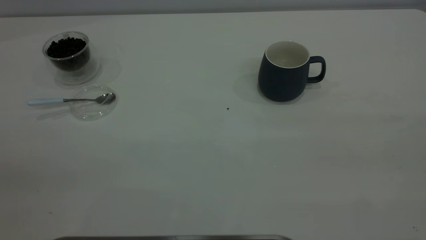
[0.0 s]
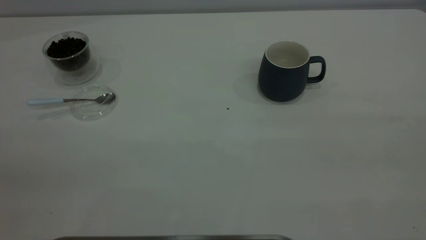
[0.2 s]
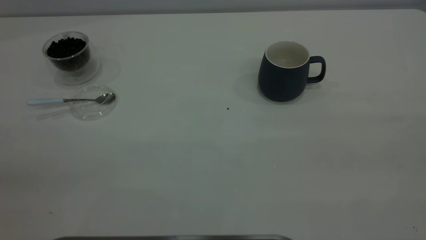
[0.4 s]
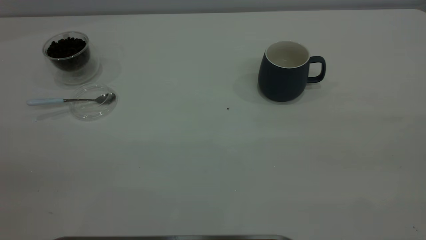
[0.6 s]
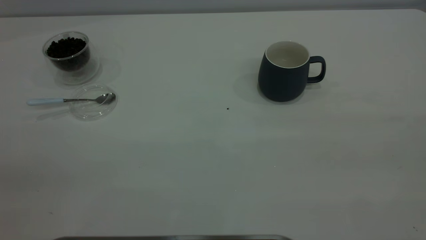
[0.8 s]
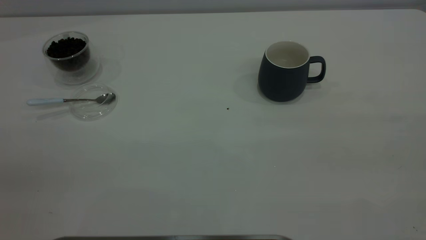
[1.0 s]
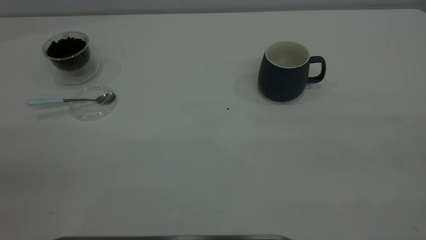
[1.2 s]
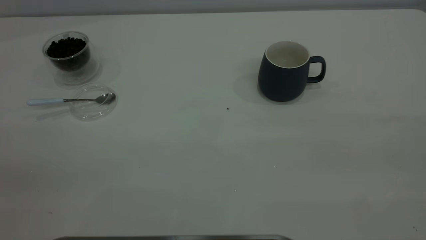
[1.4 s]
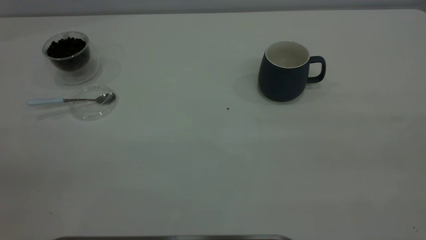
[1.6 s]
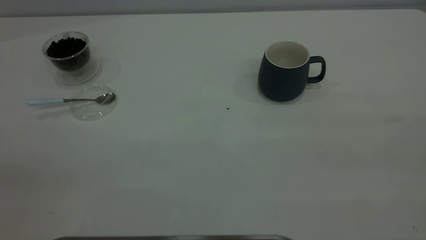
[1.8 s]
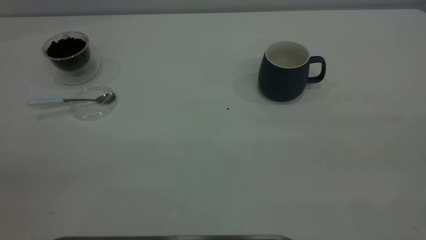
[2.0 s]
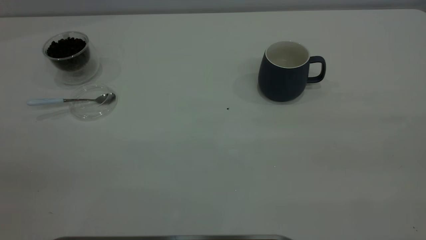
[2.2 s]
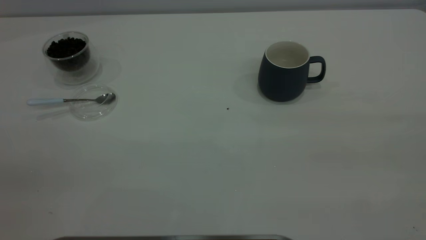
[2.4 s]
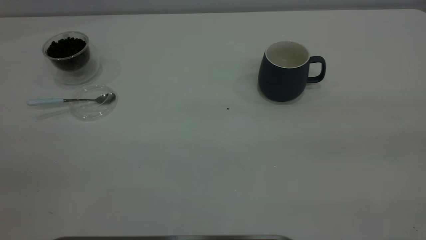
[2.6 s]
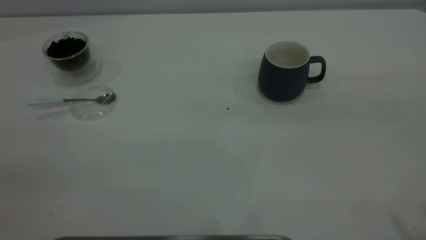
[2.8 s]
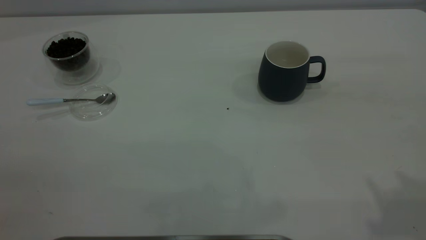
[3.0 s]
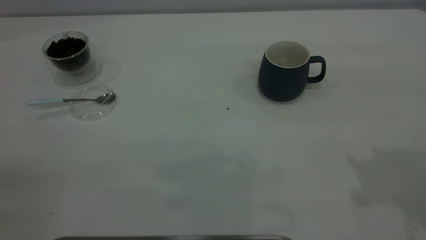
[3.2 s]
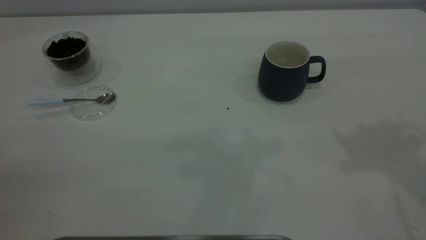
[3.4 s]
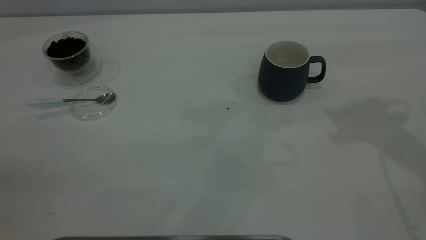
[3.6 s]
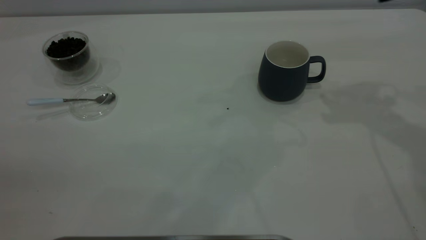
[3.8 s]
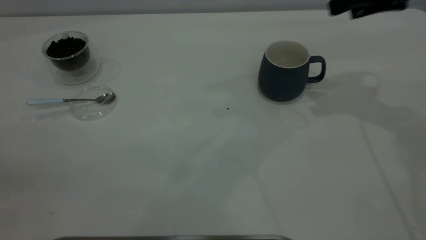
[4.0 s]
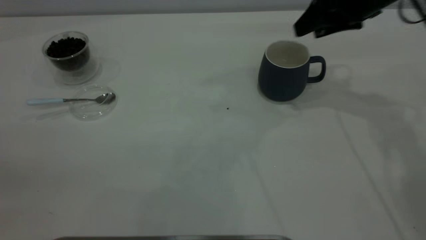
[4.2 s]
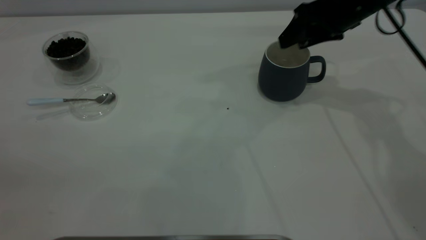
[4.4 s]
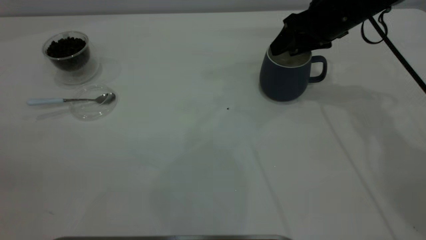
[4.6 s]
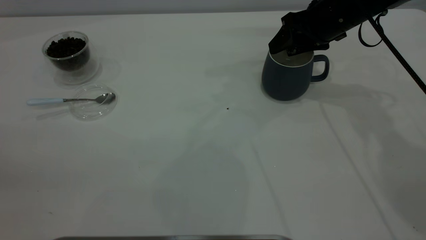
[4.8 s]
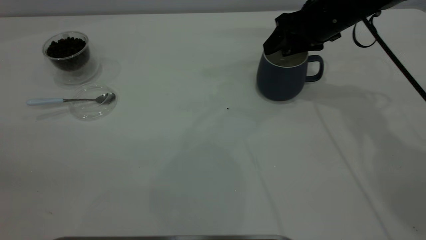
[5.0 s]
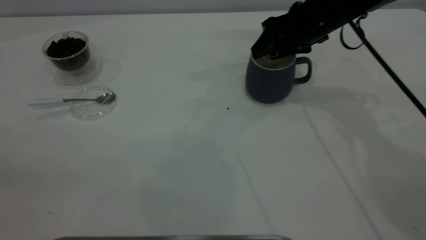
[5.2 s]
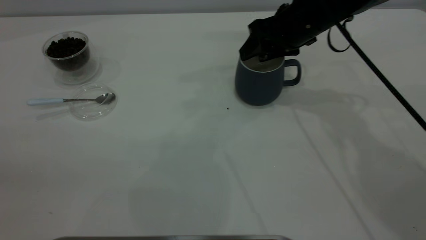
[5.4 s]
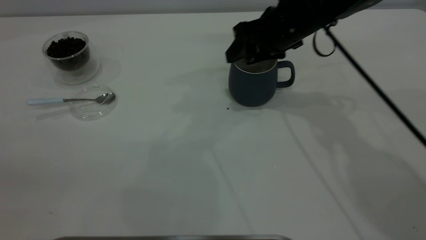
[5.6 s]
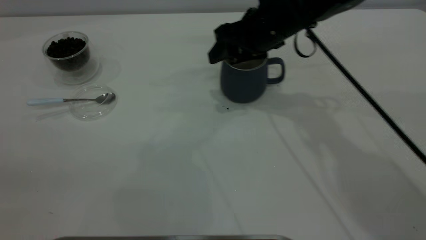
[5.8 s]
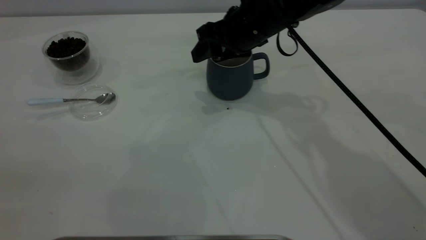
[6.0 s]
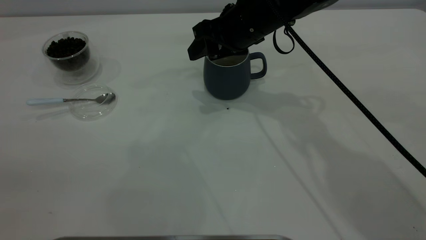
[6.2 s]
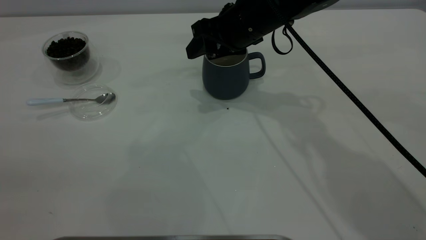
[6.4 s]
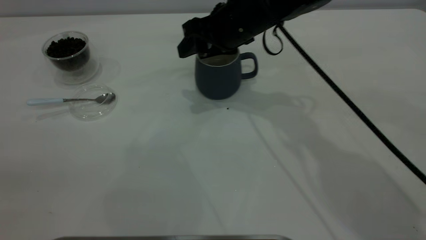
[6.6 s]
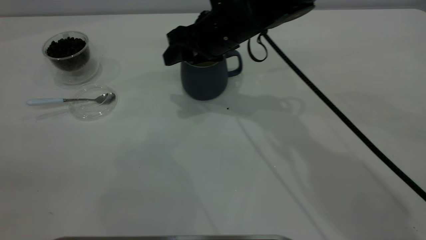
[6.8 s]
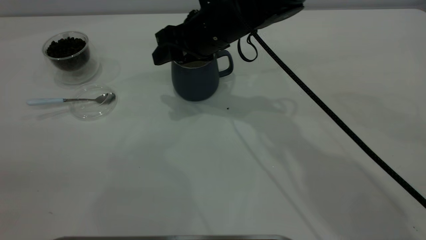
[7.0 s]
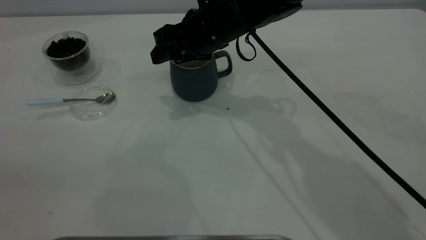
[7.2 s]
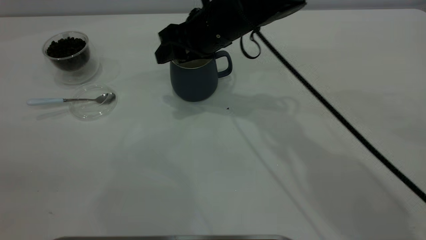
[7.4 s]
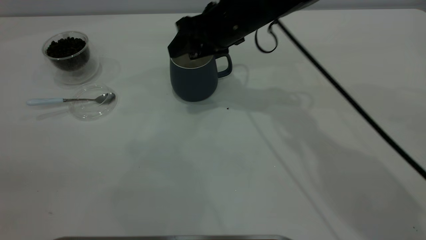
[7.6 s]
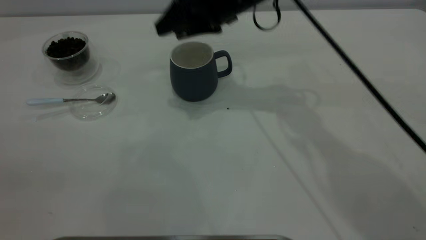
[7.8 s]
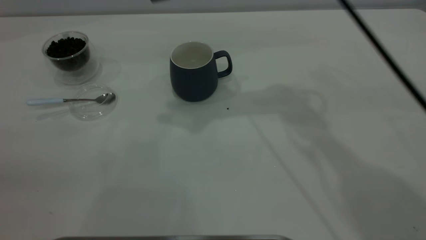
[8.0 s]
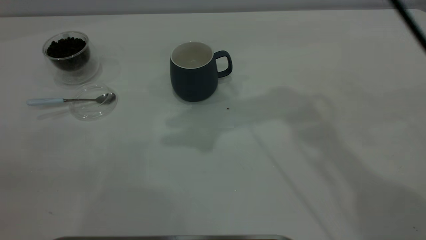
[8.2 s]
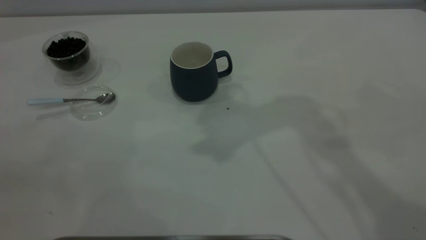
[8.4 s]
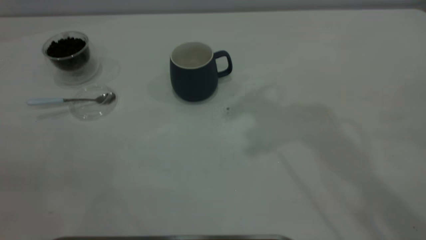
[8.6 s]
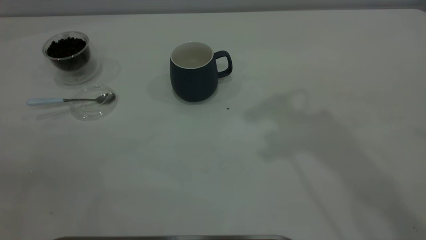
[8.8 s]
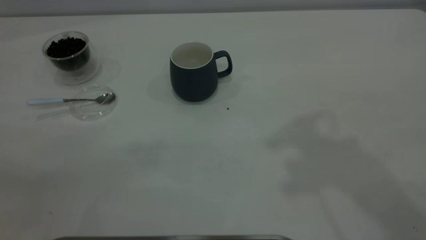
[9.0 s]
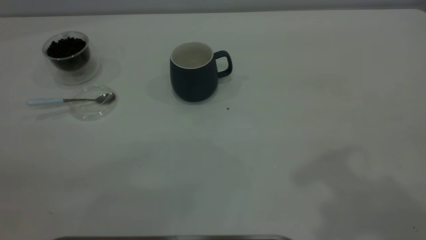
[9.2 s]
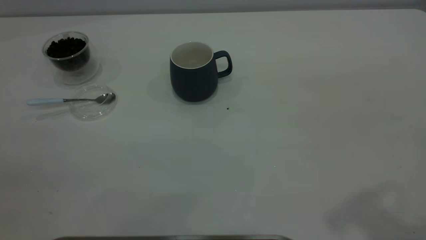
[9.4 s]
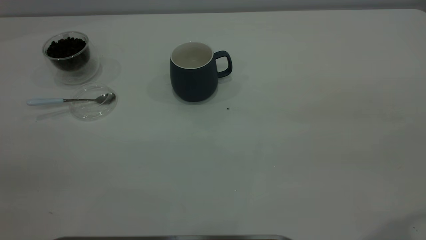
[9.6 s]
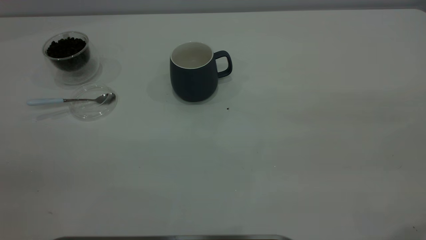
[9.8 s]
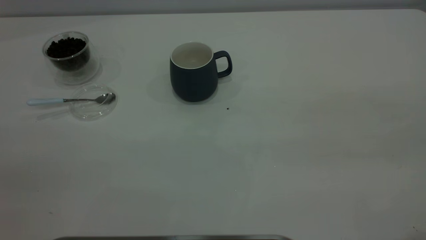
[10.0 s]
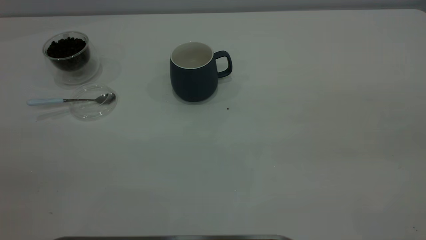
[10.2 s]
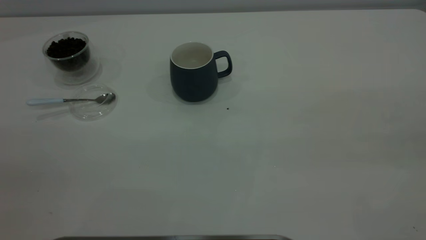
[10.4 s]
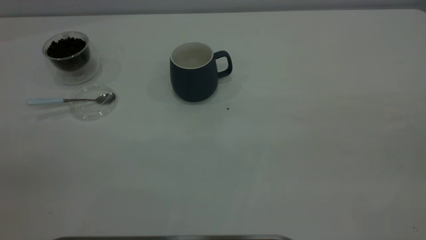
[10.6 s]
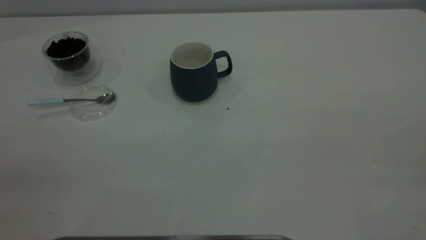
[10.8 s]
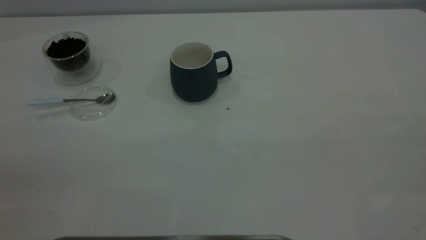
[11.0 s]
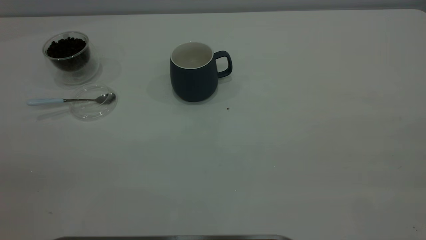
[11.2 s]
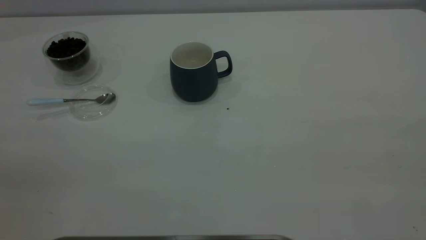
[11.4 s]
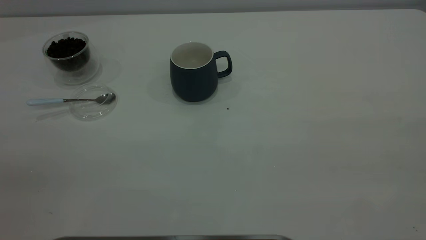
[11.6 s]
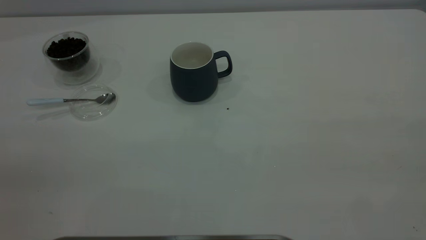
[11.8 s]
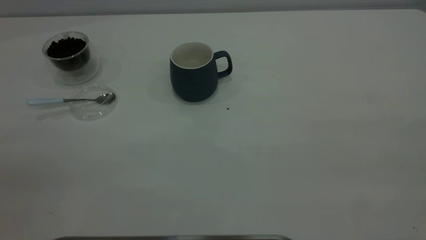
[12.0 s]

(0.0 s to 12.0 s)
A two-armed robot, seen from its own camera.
Task of the whole recording: the right gripper place the grey cup in the center of the table, the left gripper take the blue spoon from the cup lid and scoop out the coffee beans from the coffee cup and put them into the grey cup, the left gripper put the spoon back into the cup lid.
Step, 0.0 s - 7.8 s: Move the cup to the center of view.
0.0 s - 1.6 s: Both grippers stay put.
3.0 s - 4.4 s: The right gripper goes approximately 35 cm forward and downward.
4.4 s - 6.0 s: The right gripper travels to the left by some 15 cm.
6.0 s - 7.6 s: The grippers make only small movements.
7.6 s - 9.0 s: The right gripper moves upward, backward and to the right, about 35 cm.

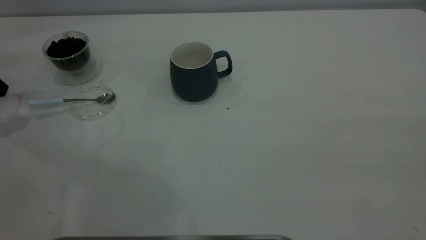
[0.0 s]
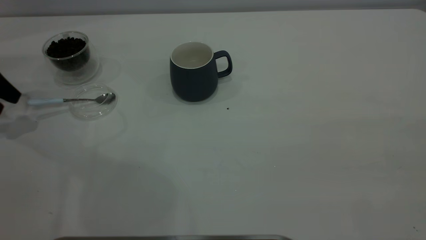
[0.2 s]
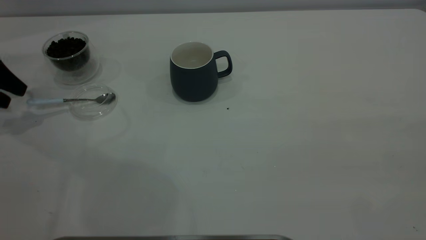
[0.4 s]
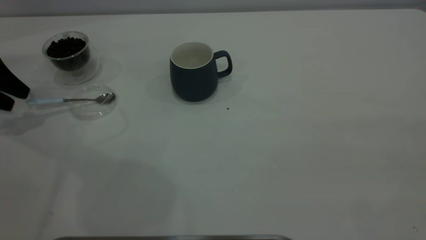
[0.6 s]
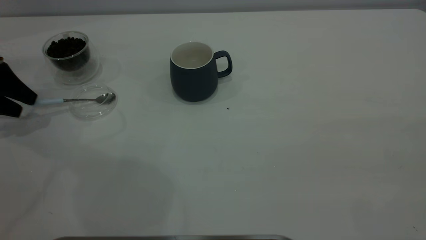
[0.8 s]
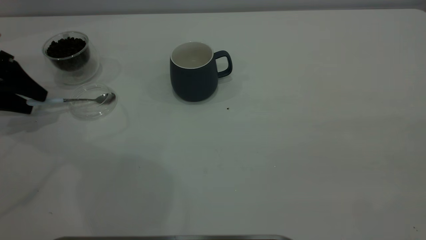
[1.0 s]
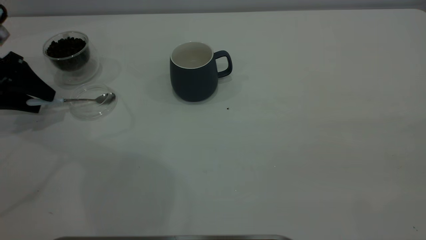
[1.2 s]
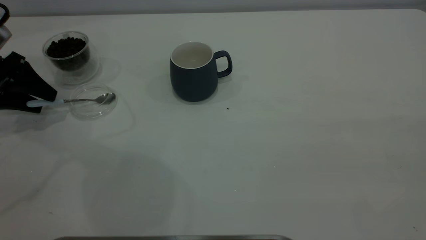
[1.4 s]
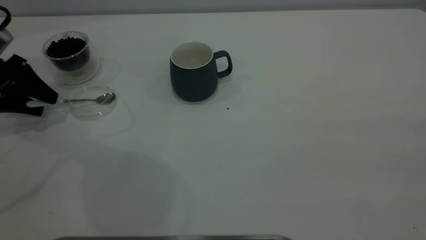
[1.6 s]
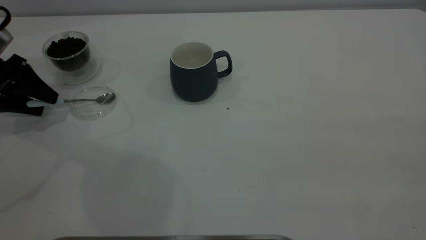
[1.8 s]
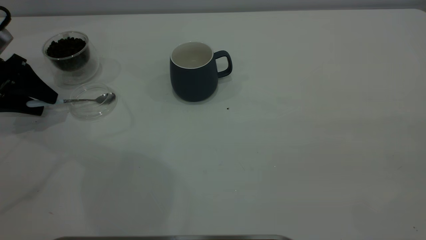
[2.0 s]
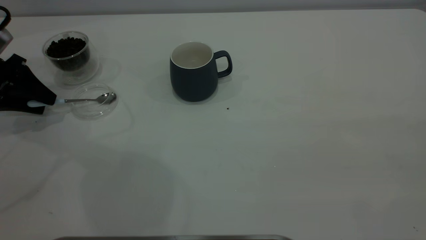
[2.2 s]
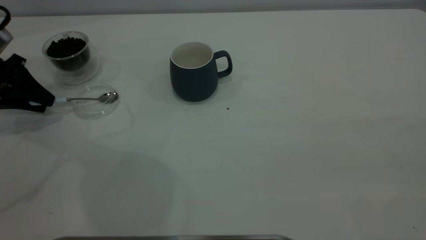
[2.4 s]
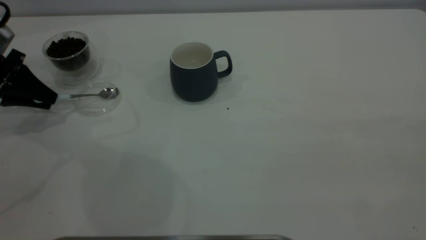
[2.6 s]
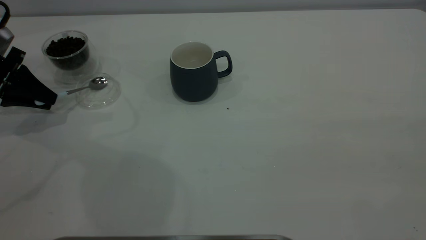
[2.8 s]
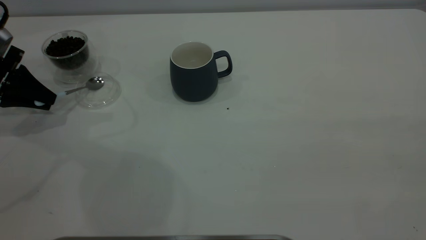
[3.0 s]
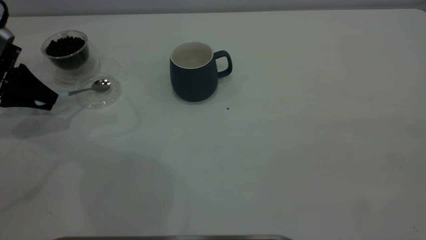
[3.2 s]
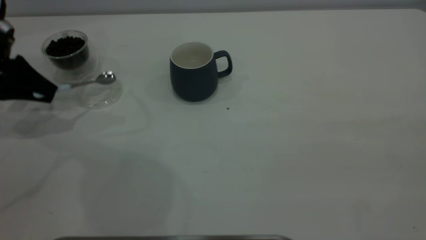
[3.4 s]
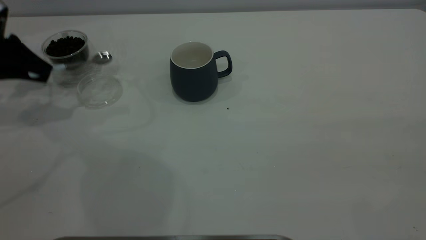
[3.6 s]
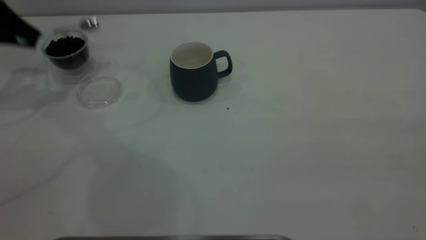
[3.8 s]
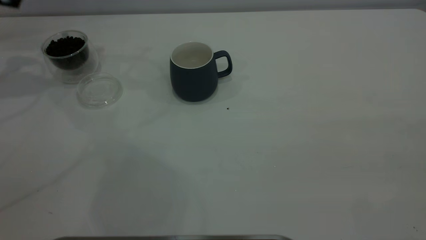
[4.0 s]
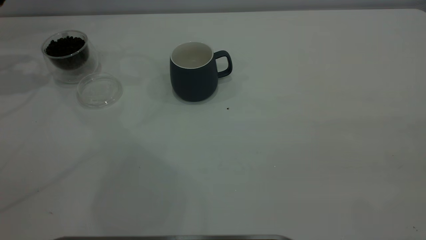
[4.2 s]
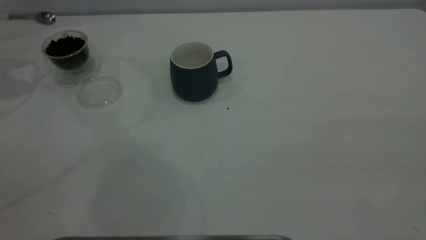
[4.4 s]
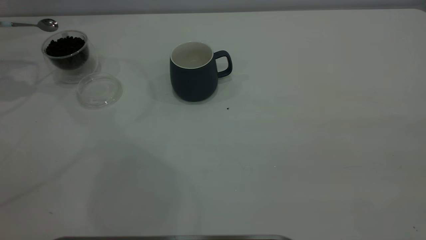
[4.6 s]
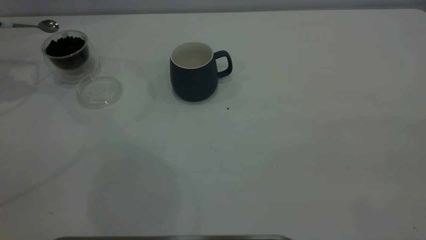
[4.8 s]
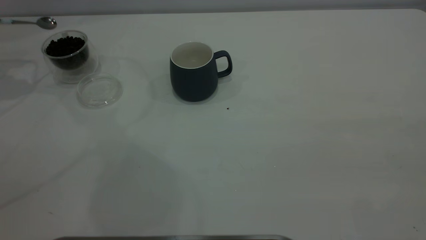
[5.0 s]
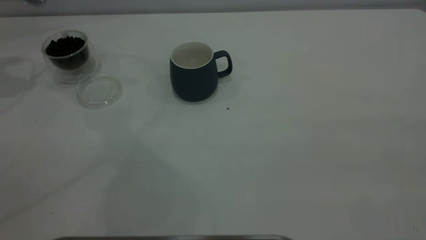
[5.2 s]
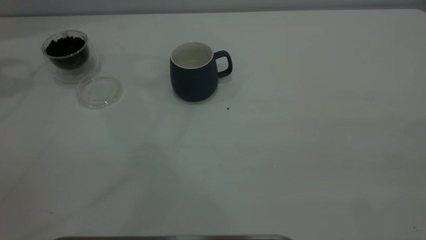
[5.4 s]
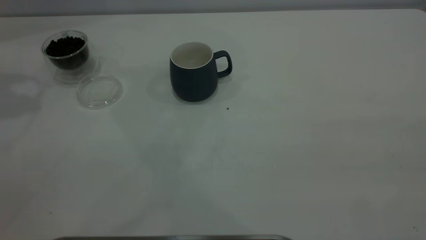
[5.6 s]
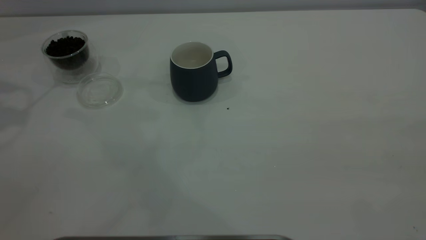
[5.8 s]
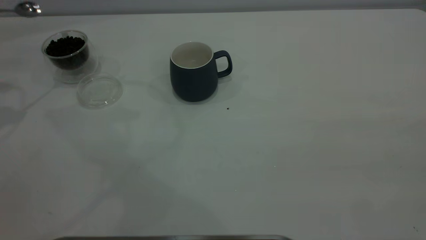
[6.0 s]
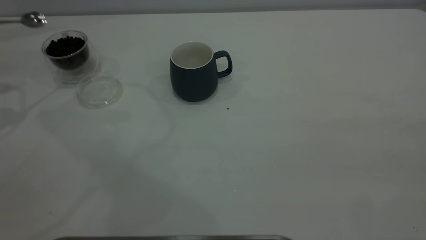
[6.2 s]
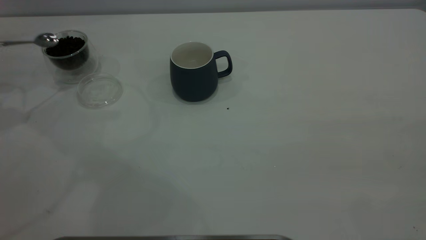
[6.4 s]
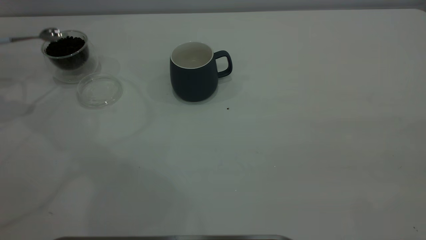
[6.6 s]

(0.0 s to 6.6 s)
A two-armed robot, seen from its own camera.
Task of the whole recording: the right gripper place the grey cup in the center of the table, the left gripper take the blue spoon from the cup lid and scoop out the coffee beans from the coffee cup and put them into the grey cup, the left gripper put the spoon back into the cup lid.
Step, 0.0 s - 3.6 s: Pick up the spoon.
0.0 s - 1.6 s: The left gripper ends up roughly 5 cm from where it was.
1.6 s - 3.2 s: The left gripper closes its fingers.
3.2 s - 5.0 s: The left gripper is displaced upward and forward by approximately 15 cm.
